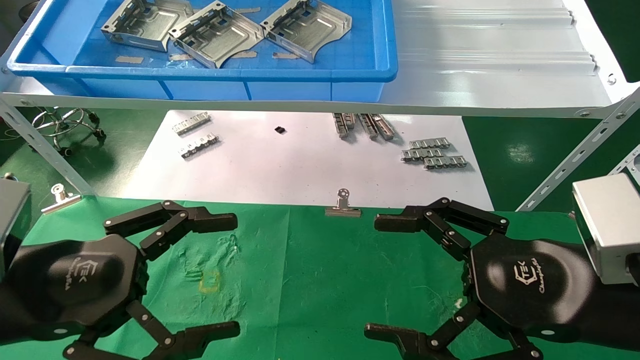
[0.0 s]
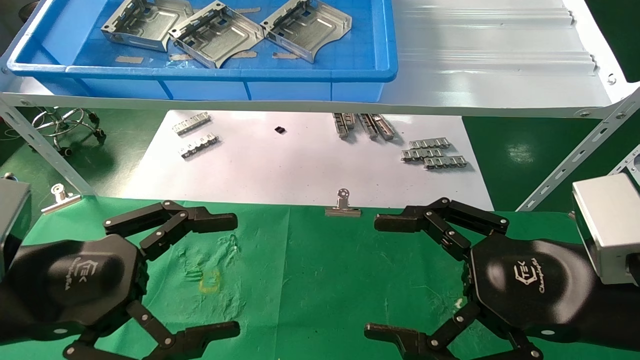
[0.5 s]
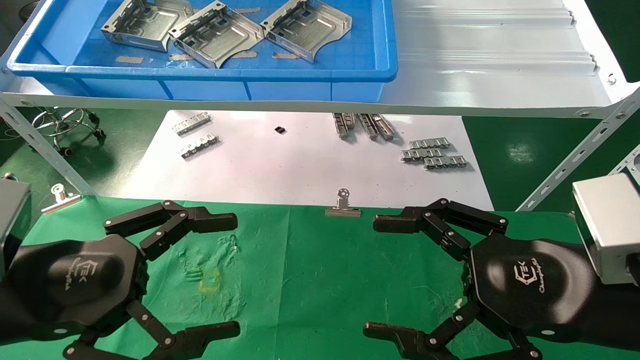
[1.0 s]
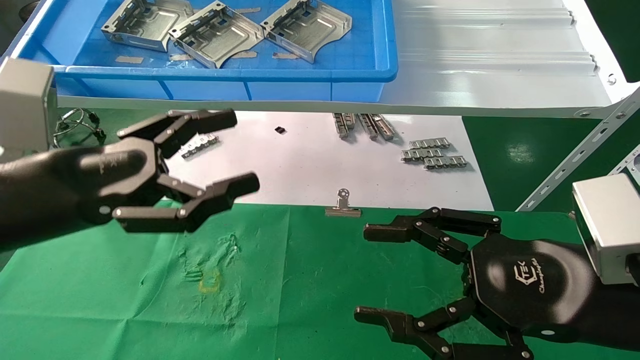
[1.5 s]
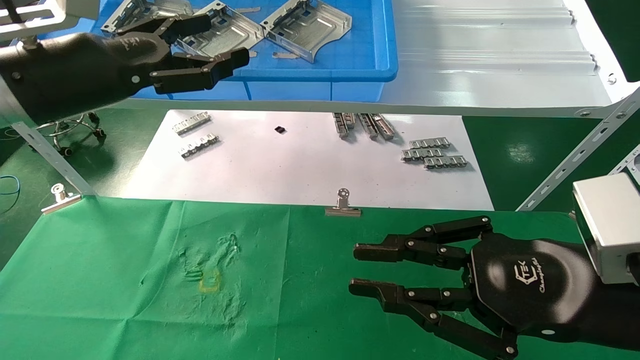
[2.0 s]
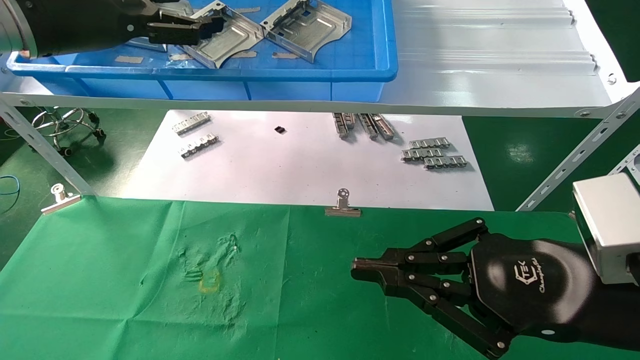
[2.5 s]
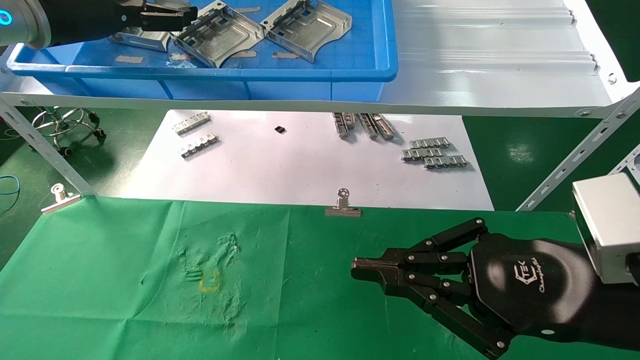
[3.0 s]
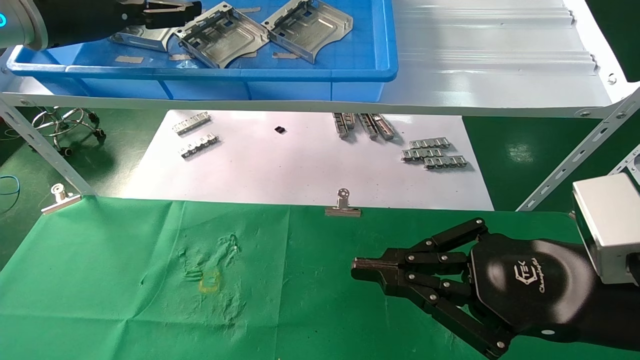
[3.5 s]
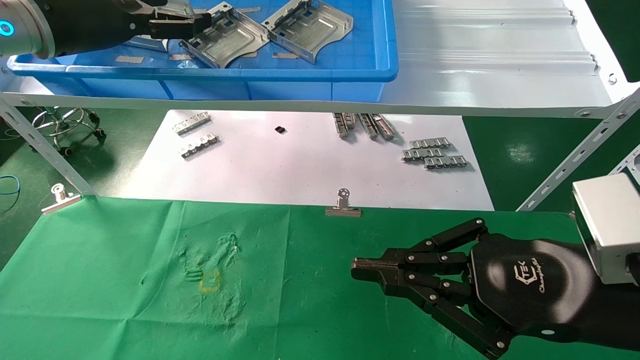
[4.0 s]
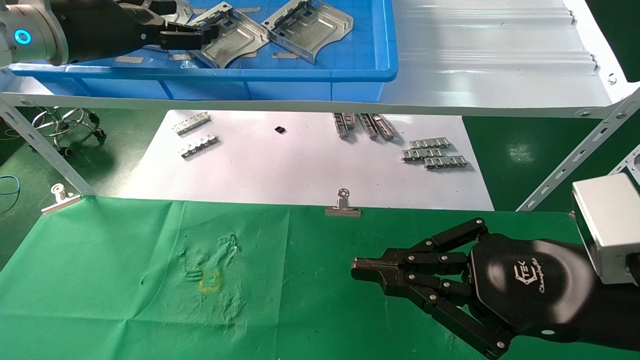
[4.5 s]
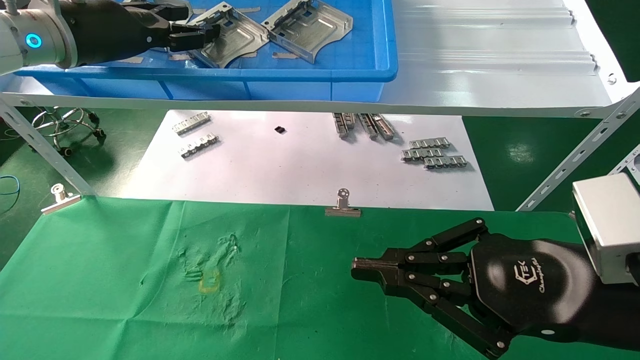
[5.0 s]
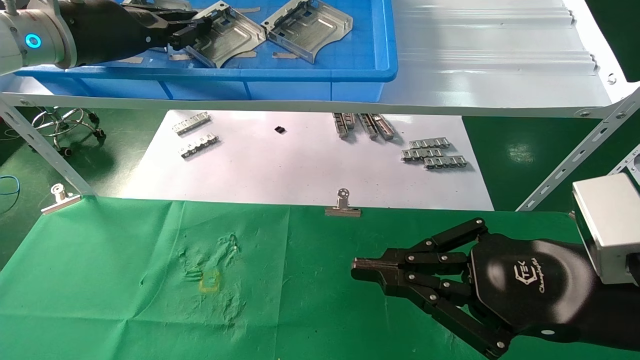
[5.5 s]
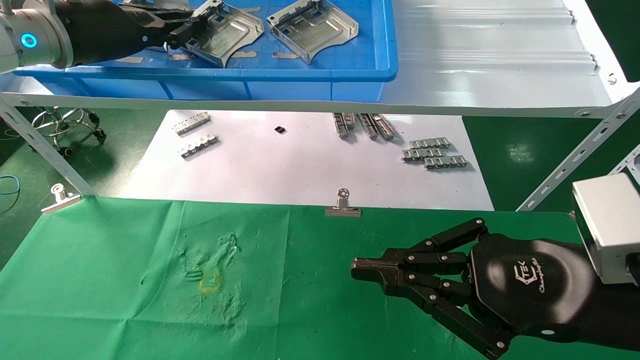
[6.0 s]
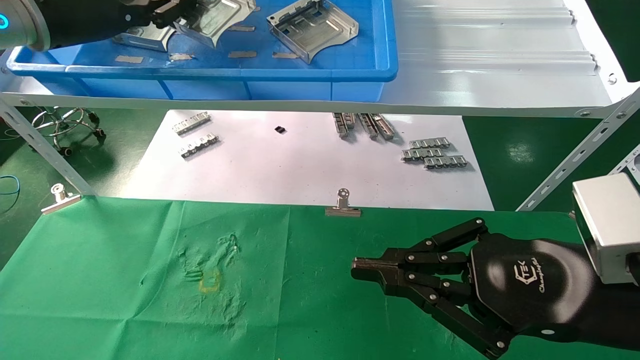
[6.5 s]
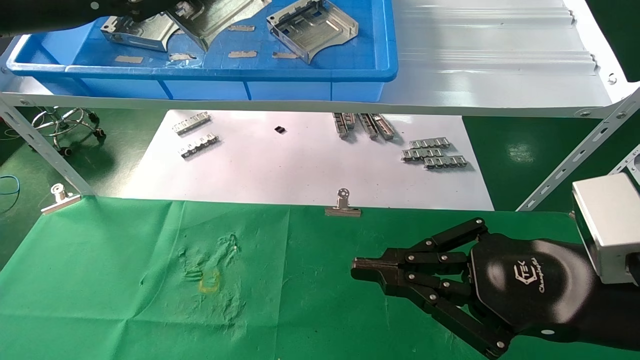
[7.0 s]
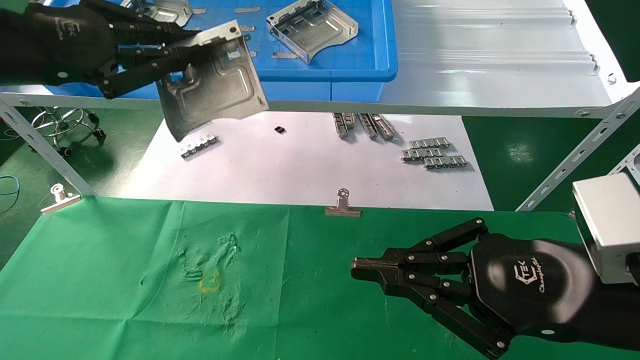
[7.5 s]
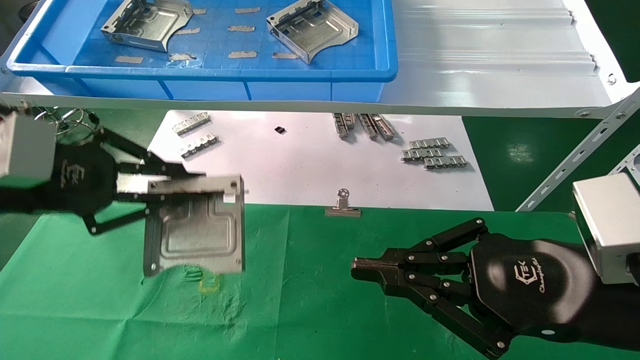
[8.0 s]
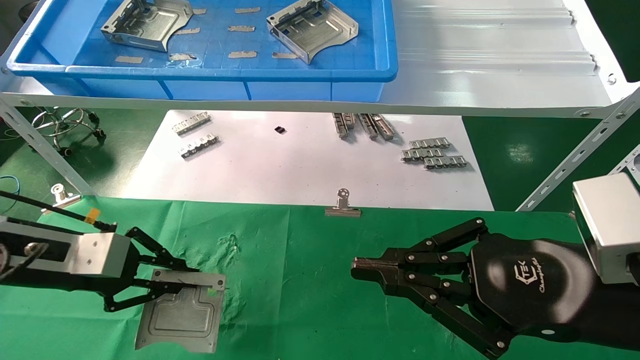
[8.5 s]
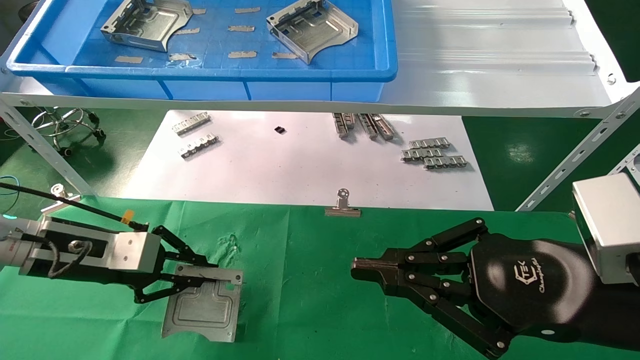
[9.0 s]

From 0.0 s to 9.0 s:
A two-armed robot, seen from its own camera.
Task of the whole recording: use the mechanical arm to pick up the parts and place them on the table.
Step, from 1.5 s to 5.5 s: Pick up the hard drive bracket from the feeding area.
From 0.0 s to 2.0 s: The right gripper closes up. The left gripper moves upward and forward, about 20 cm.
From 2.0 s to 4.5 s: The right gripper closes. The left gripper travels forward and upward by approximately 10 cm.
From 4.5 s to 7.0 s: The left gripper moves backward, about 10 cm, and closes.
From 7.0 s to 9.0 s: The left gripper heads downward, covering roughly 25 cm.

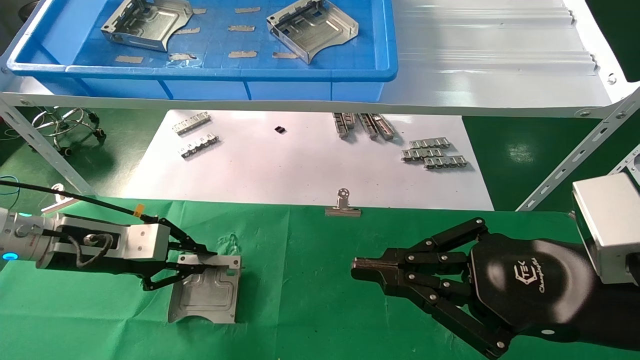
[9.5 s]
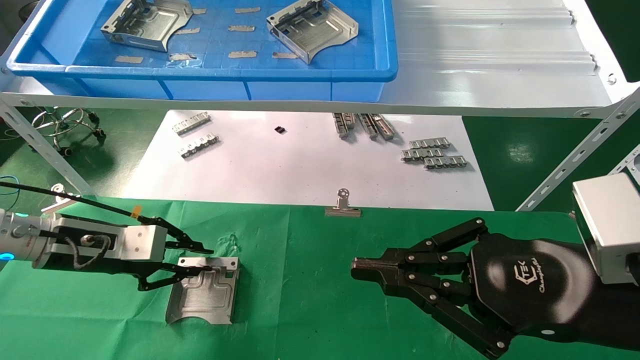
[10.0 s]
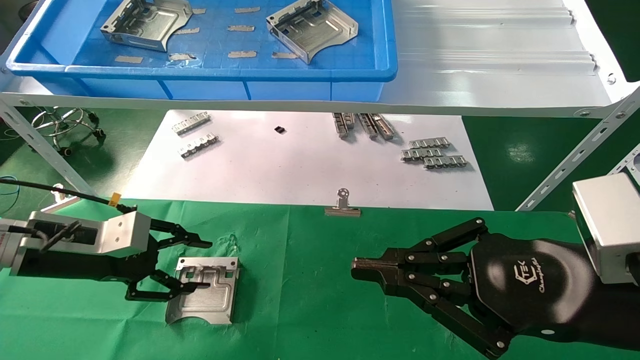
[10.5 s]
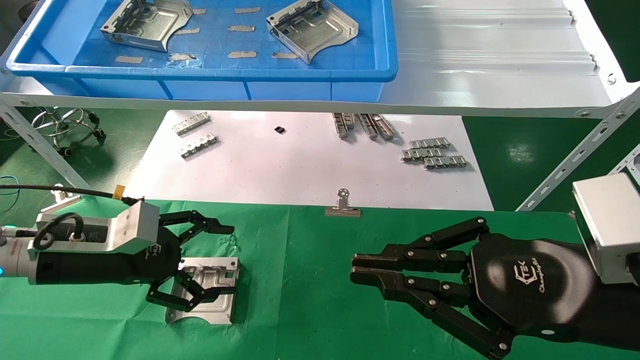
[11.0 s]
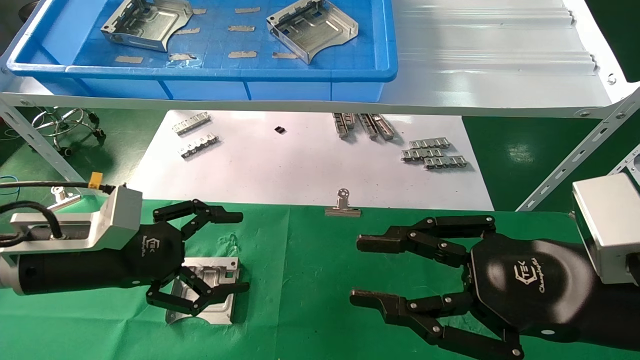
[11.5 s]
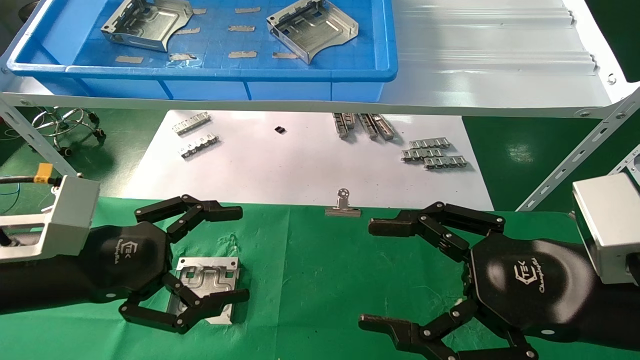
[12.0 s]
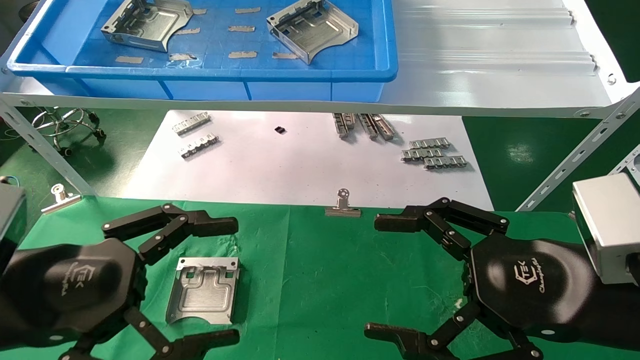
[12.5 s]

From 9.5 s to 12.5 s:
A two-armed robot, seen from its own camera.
Task of the whole recording: use the mechanical arm to pick up the parts and place them on the table.
From 9.5 s to 11.0 s: The left gripper opens up.
From 11.0 s to 12.5 s: The right gripper opens; the left gripper is displaced backward by about 15 cm.

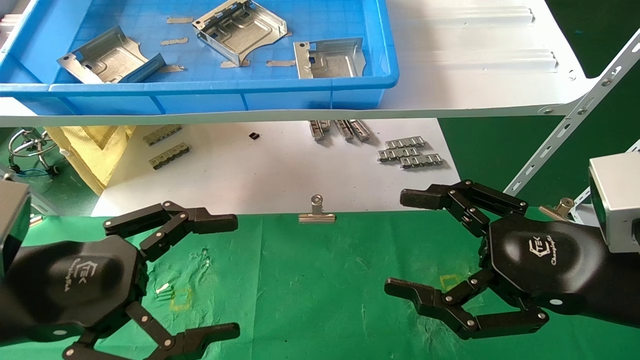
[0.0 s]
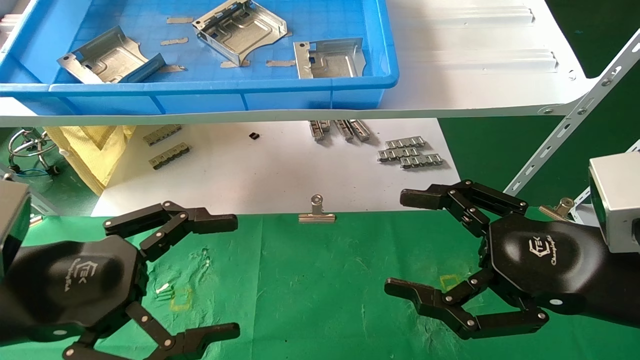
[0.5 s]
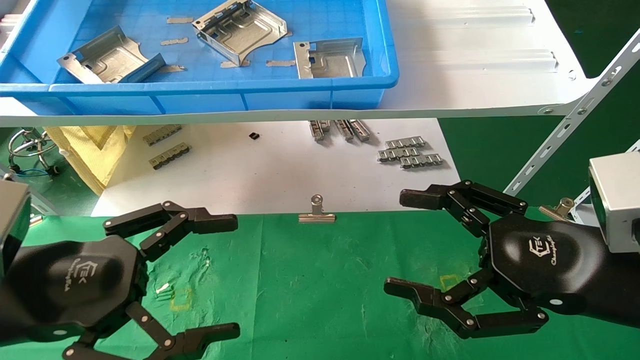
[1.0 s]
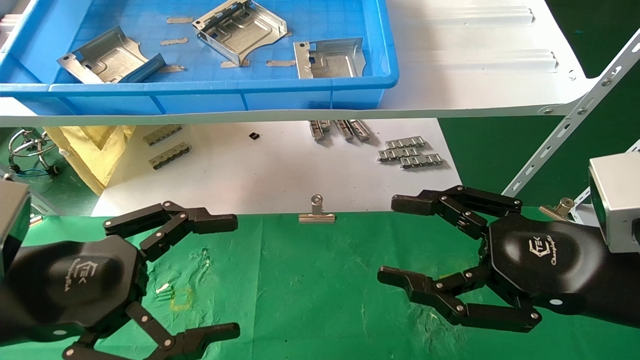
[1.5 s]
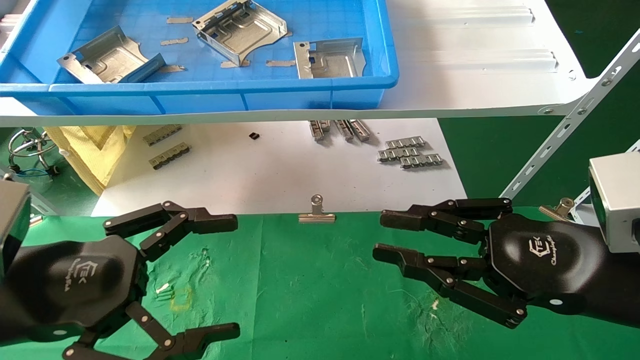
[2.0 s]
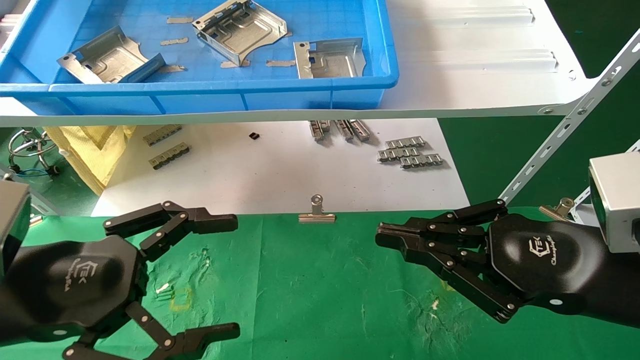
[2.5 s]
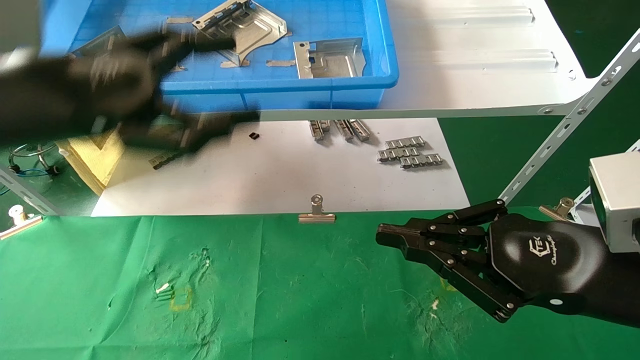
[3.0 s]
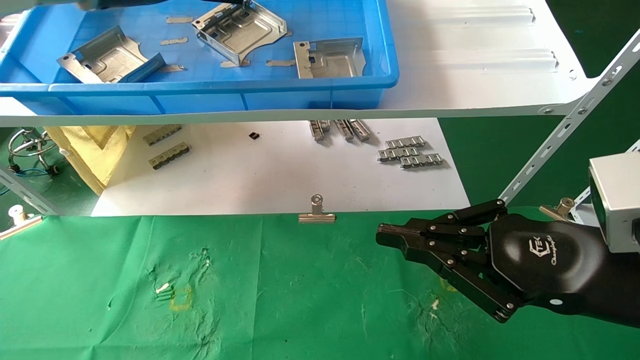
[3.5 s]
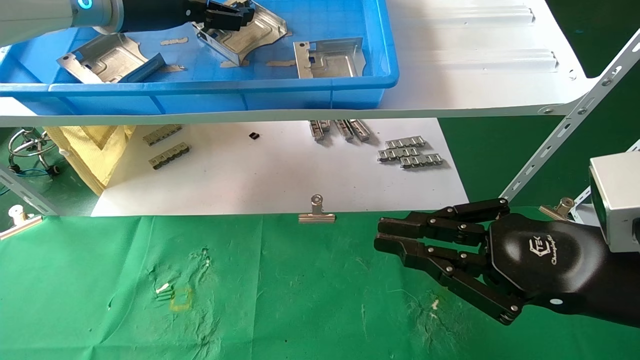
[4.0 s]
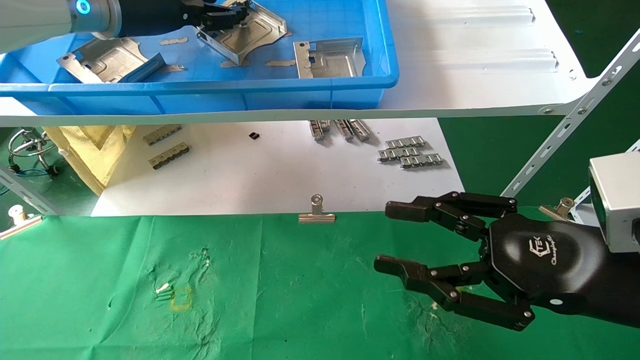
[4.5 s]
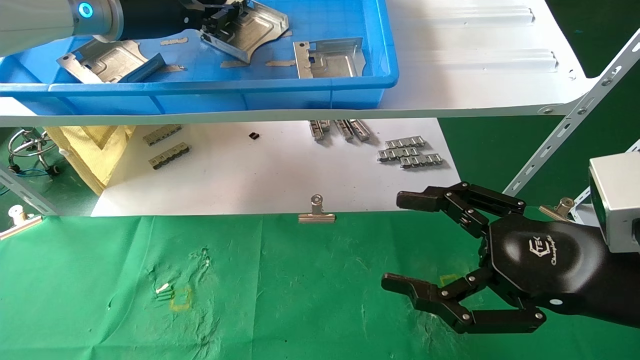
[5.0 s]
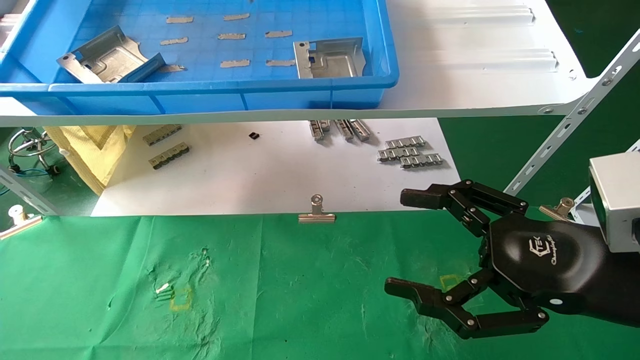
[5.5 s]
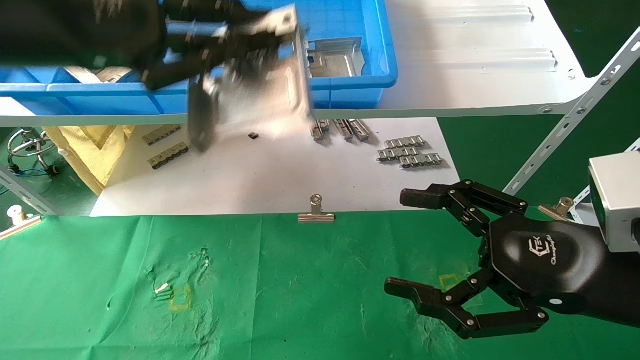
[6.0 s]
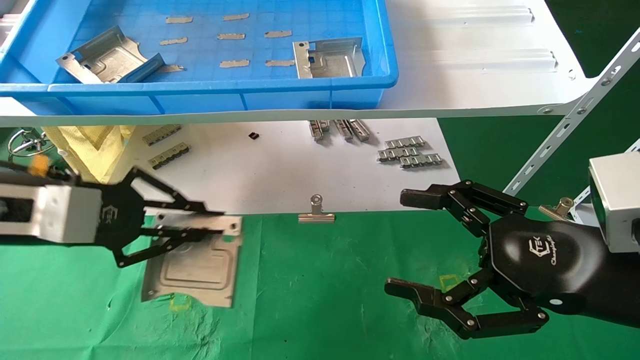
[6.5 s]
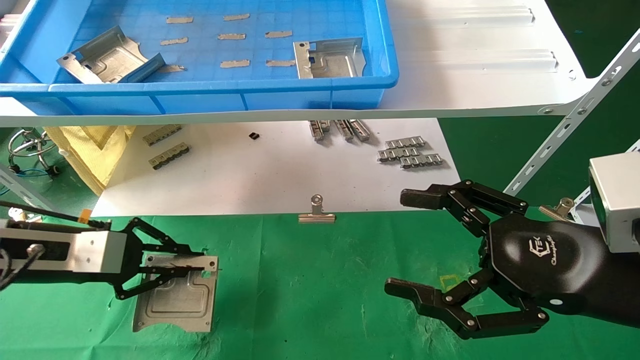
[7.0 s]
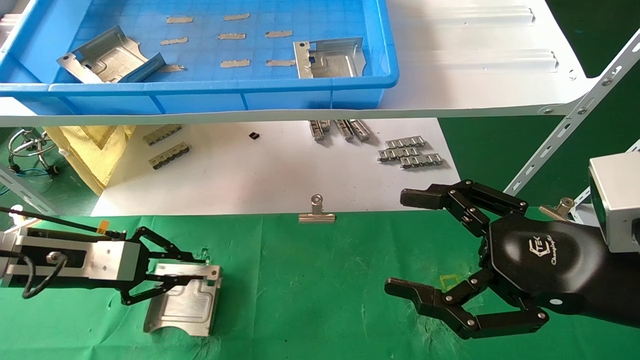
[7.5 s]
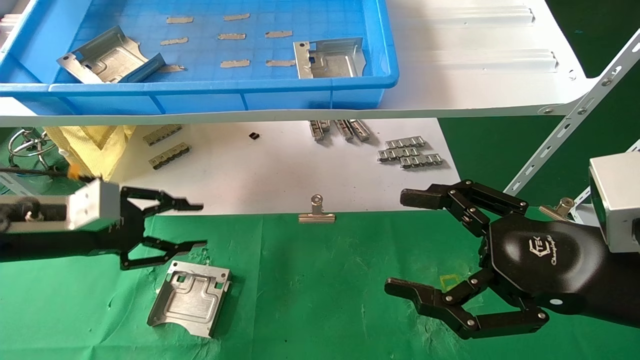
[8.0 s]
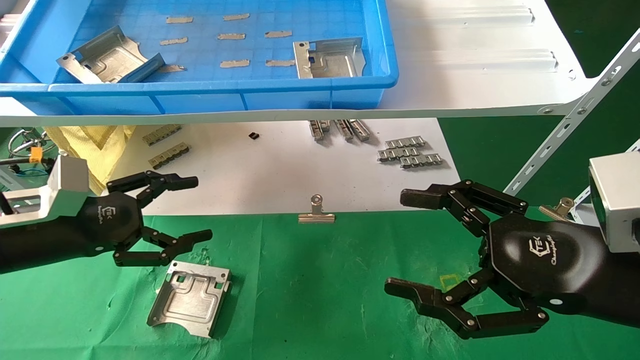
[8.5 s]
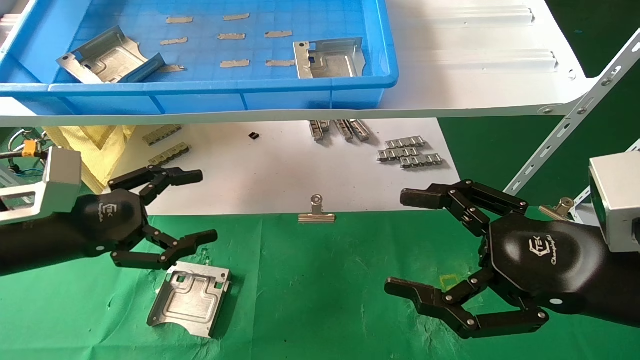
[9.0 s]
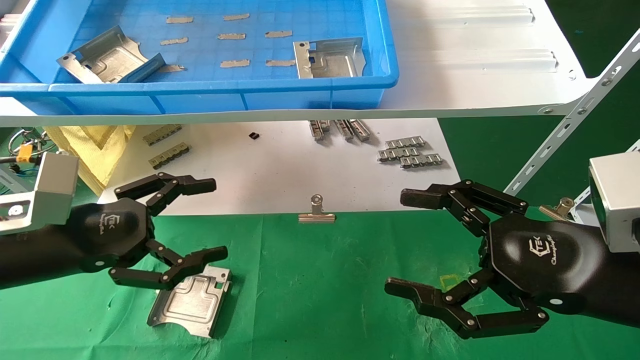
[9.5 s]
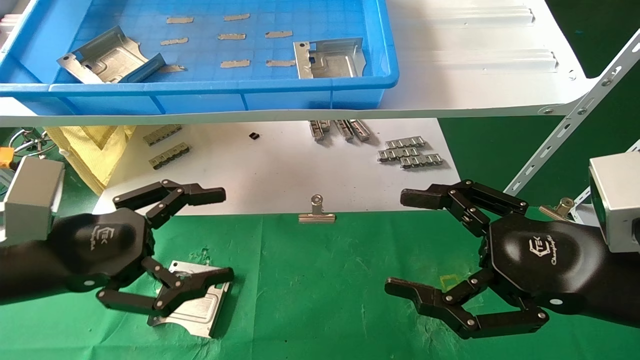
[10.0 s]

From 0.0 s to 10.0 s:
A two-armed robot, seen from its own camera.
Task of the whole recording: use the mechanical arm to pick up the parts and place them on the table.
Step, from 3.0 s to 5.0 s: Pick up the hard drive bracket from the feeding area.
Step, from 5.5 s to 7.5 s: Place the hard drive bracket into the box.
From 0.0 s to 2.0 s: The right gripper closes its fingers.
From 2.0 s to 4.0 s: The right gripper closes its fingers. Meanwhile the left gripper is displaced upward and forward by about 35 cm.
From 4.0 s to 6.0 s: The left gripper shifts some 15 cm backward, and closes. Meanwhile the right gripper opens.
From 6.0 s to 8.0 s: The left gripper heads downward, covering roughly 20 cm.
From 8.0 s to 10.0 s: The left gripper heads backward and to the right, covering approximately 10 cm, and opens its fingers.
